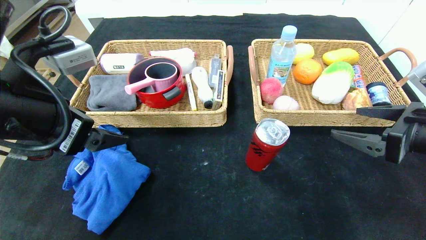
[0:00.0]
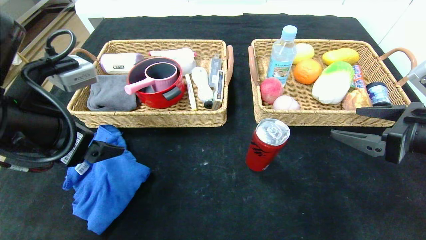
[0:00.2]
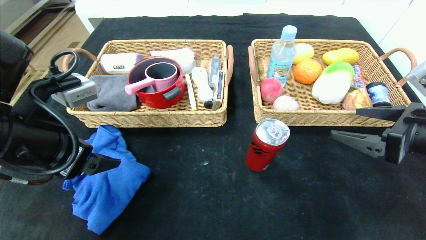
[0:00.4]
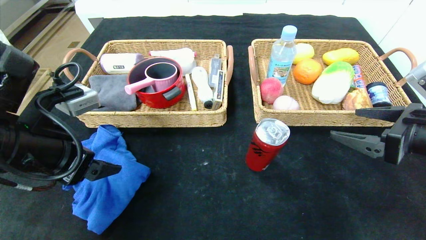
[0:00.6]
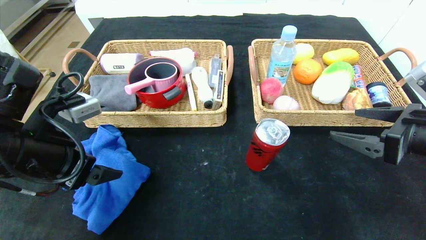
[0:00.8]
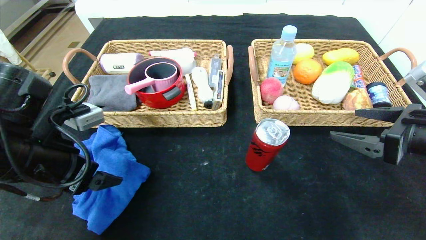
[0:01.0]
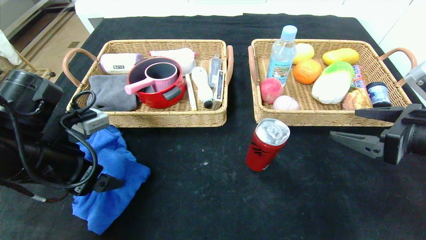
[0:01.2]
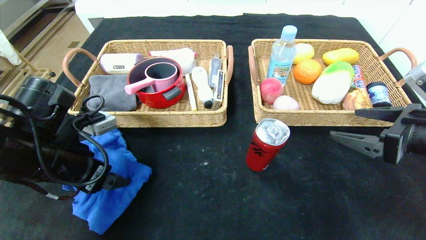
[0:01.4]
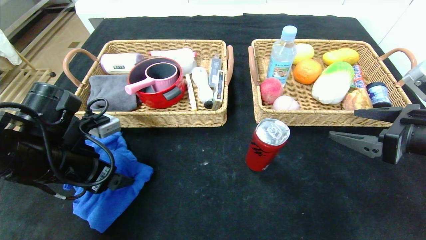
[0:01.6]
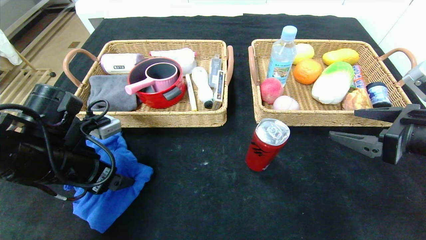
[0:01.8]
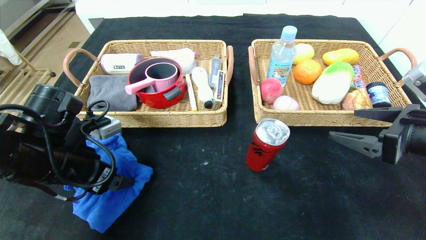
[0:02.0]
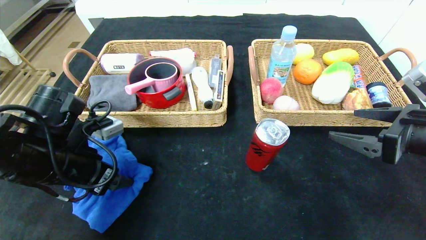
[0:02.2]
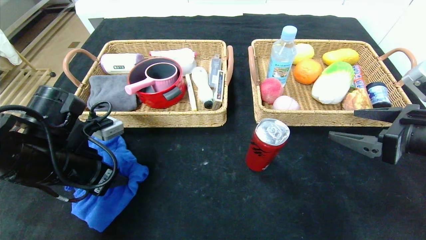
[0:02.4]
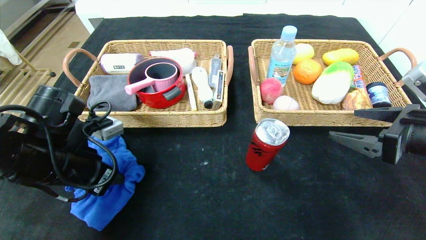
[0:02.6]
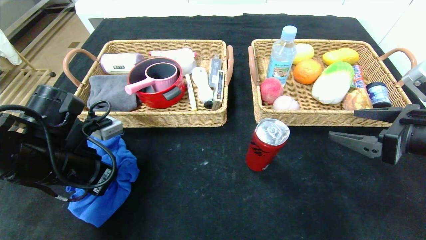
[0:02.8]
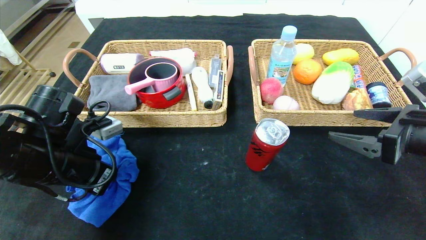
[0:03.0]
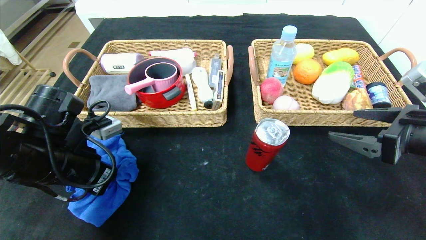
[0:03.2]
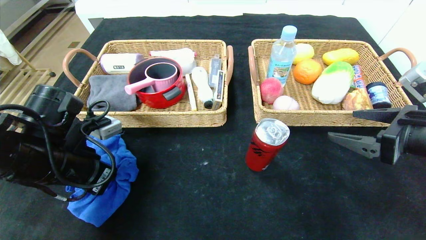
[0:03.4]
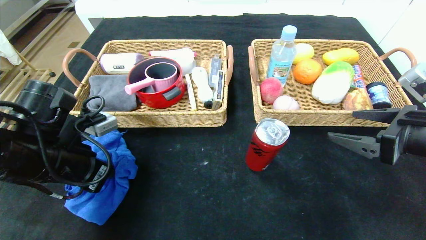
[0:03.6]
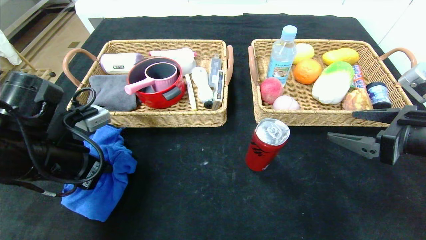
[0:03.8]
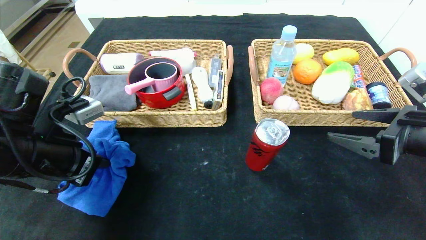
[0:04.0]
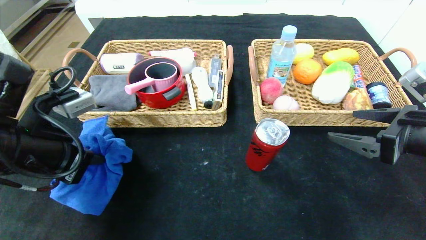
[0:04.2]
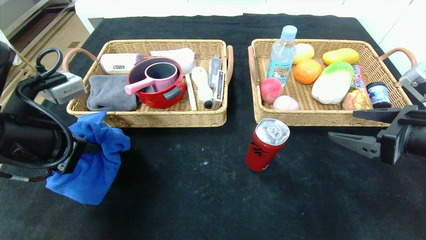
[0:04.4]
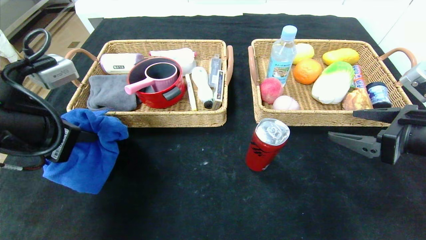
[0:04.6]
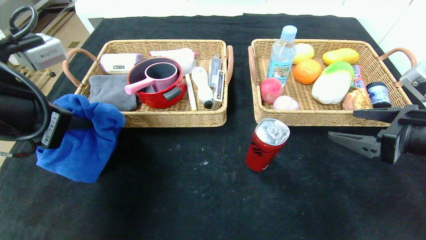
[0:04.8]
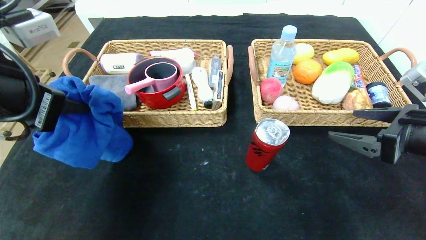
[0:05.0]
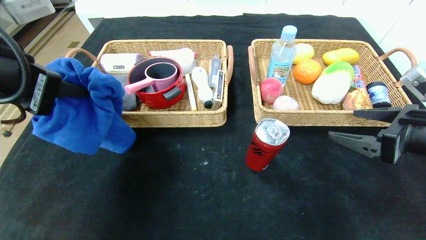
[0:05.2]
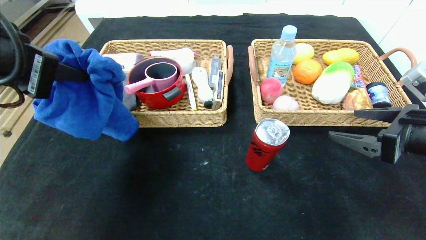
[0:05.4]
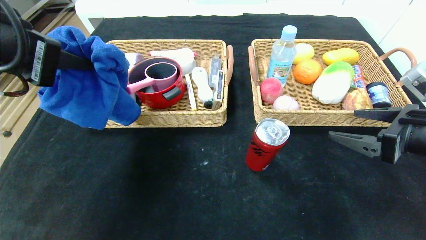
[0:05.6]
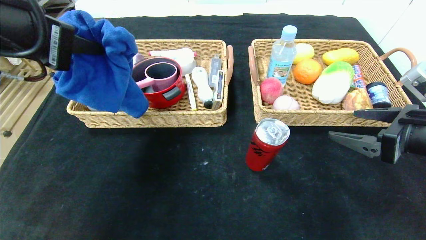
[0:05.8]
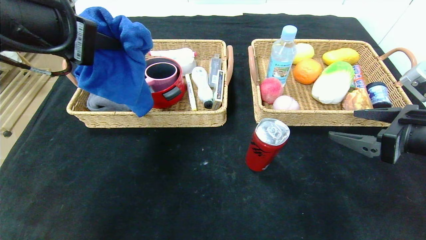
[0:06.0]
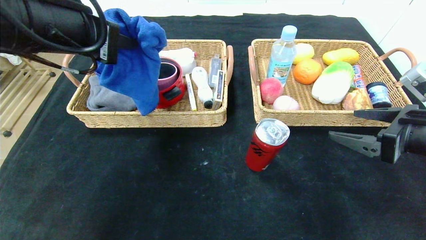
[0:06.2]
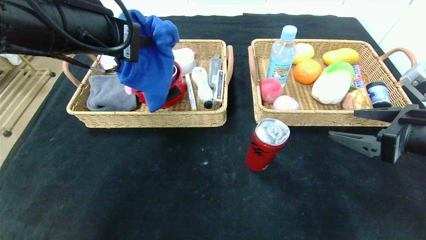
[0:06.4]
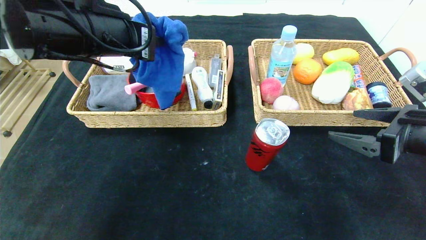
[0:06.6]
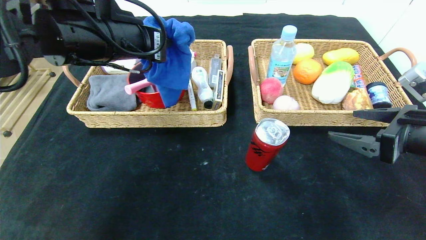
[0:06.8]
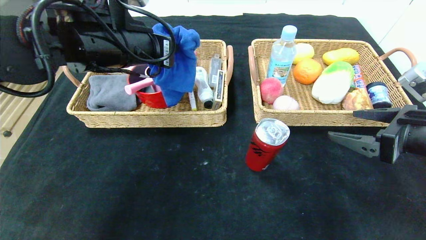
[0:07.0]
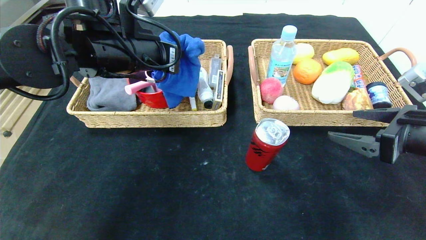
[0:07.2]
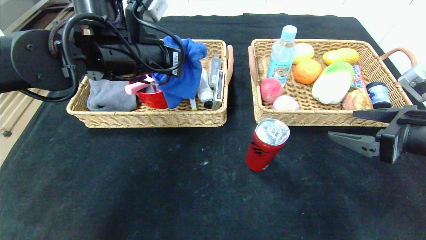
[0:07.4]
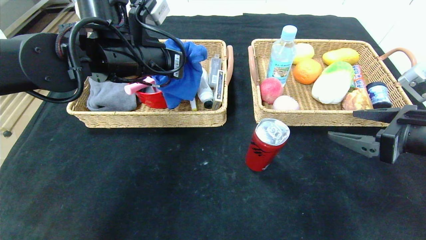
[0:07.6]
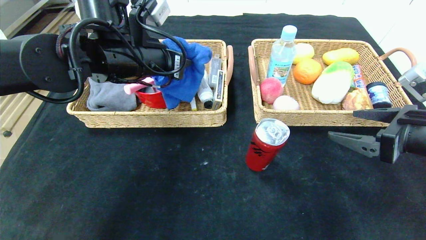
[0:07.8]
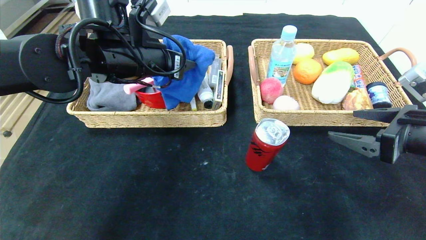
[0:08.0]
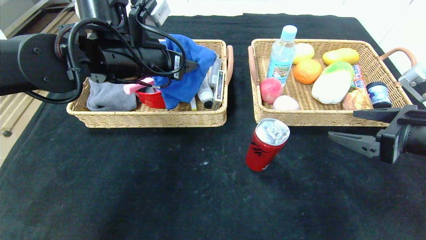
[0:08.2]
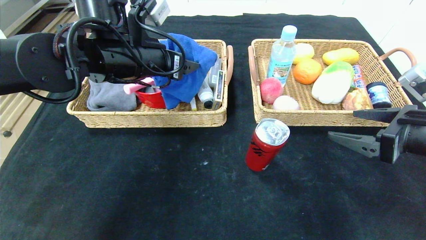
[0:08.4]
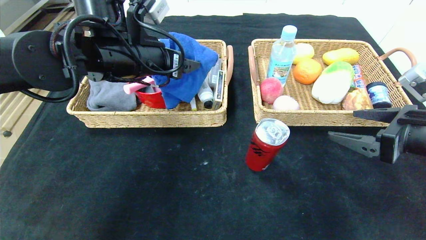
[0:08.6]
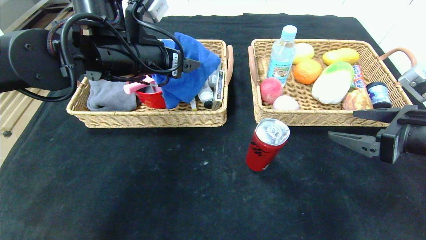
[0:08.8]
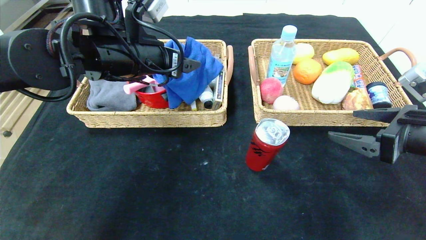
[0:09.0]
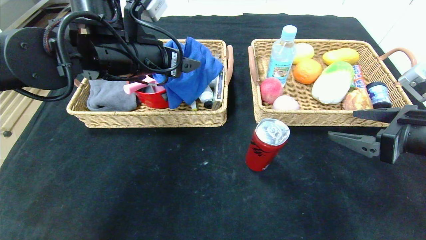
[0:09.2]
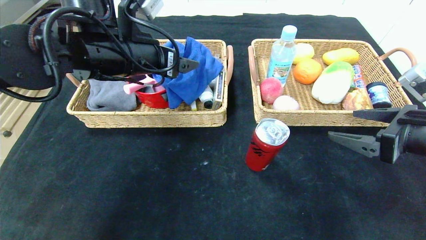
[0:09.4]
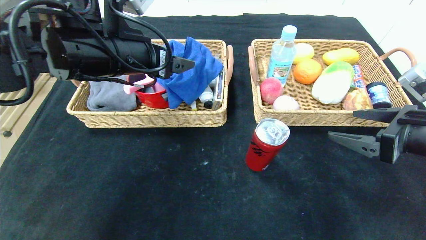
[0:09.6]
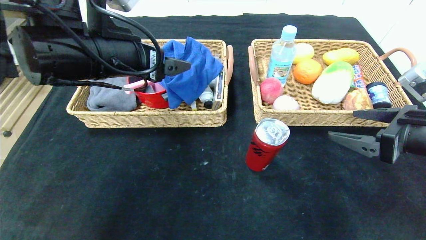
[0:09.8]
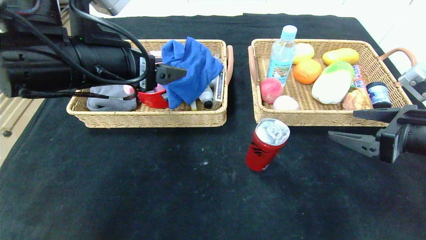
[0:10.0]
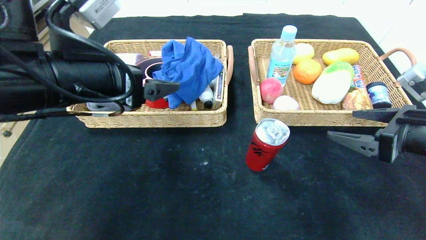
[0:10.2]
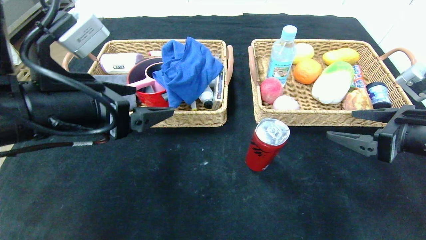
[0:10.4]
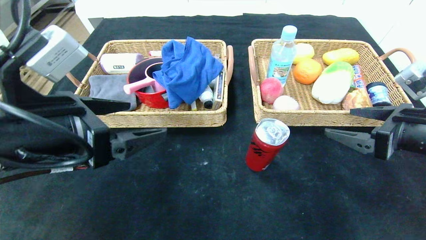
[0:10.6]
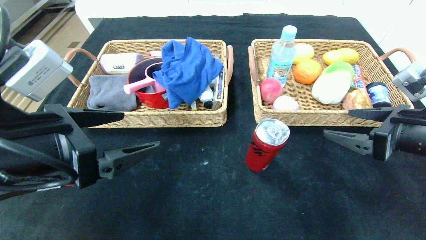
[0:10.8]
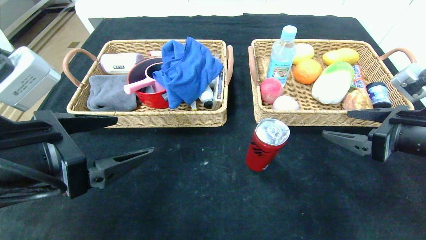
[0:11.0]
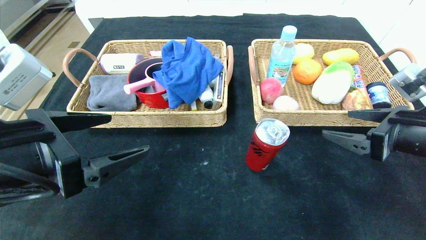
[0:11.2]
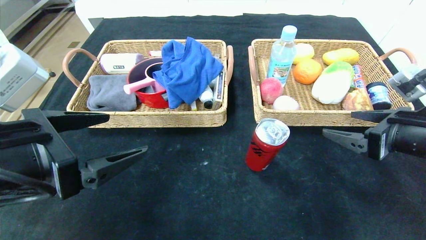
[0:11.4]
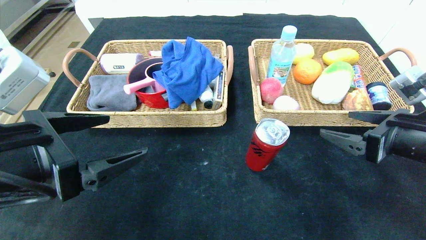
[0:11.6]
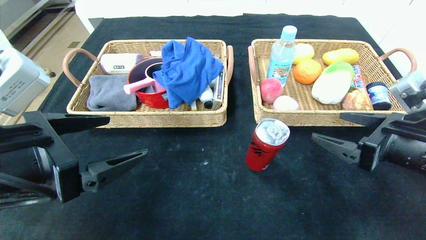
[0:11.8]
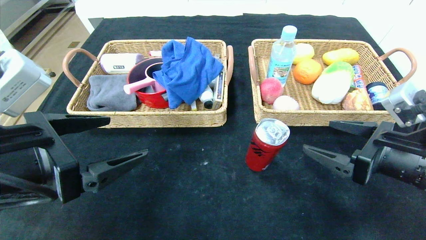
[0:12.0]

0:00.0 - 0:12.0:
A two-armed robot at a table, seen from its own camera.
Step, 0:00.0 - 0:08.8: Grasp the blue towel and put it in the left basket.
0:00.0 - 0:01.6: The left gripper goes roughly 10 cm downward.
0:01.6 - 0:03.0: The left gripper closes up.
0:03.0 - 0:04.4: The left gripper travels upward by roughly 5 cm.
0:04.4 - 0:06.0: The left gripper goes about 10 cm upward.
0:06.0 - 0:07.6: The left gripper is displaced forward, to the right and downward by roughly 15 cm.
0:07.6 - 0:09.0: The left gripper opens up.
0:09.0 - 0:10.4: The left gripper travels backward by approximately 15 cm.
0:10.4 - 0:12.0: The right gripper shifts by about 5 cm. Meanwhile the left gripper is displaced backward by approximately 5 cm.

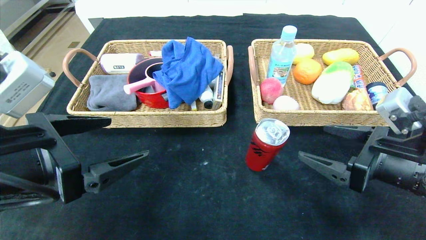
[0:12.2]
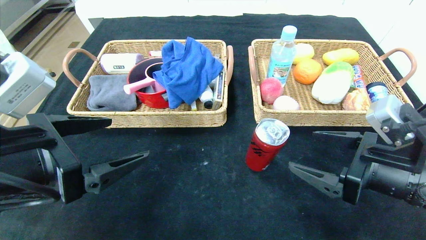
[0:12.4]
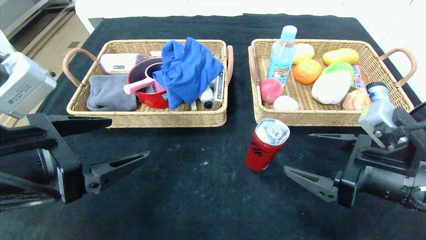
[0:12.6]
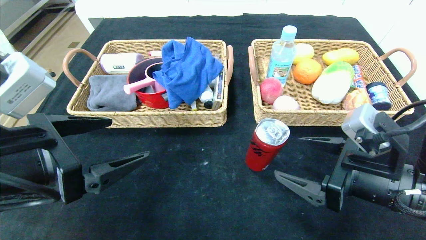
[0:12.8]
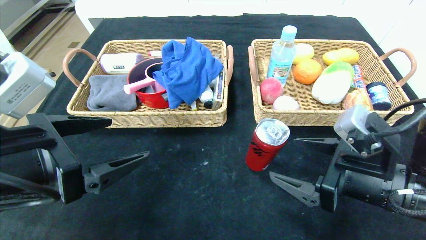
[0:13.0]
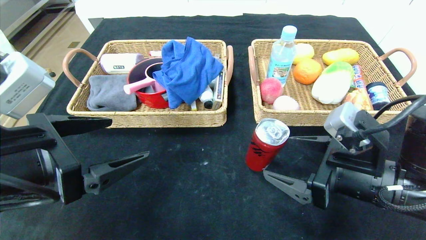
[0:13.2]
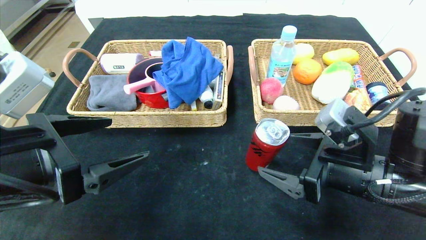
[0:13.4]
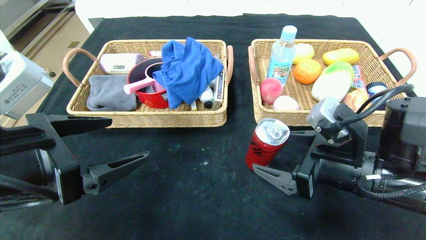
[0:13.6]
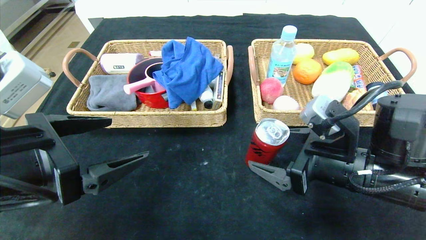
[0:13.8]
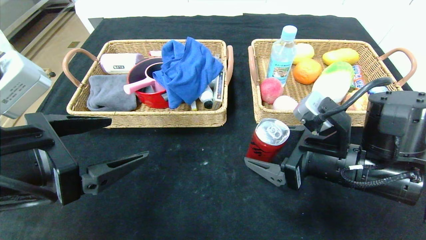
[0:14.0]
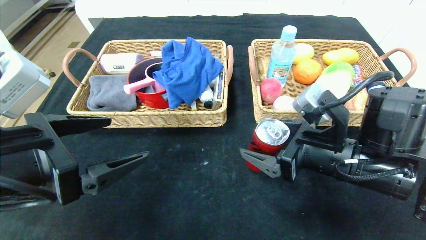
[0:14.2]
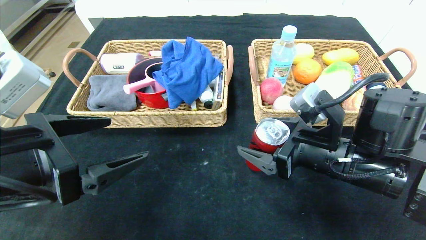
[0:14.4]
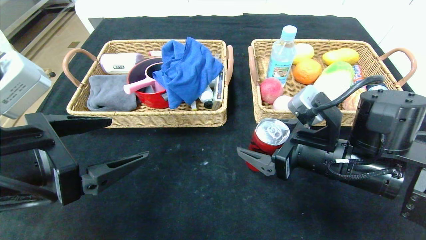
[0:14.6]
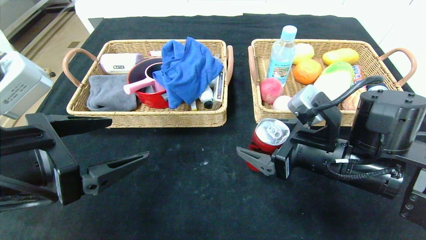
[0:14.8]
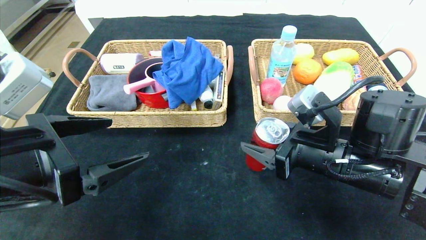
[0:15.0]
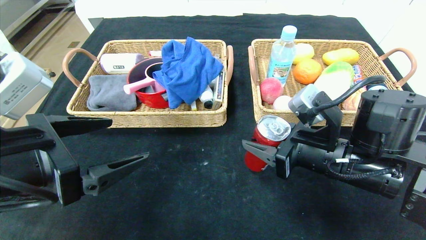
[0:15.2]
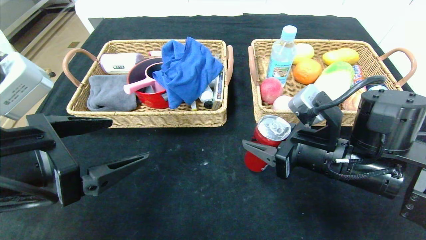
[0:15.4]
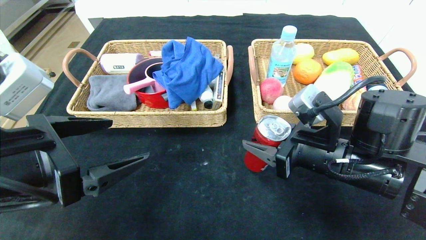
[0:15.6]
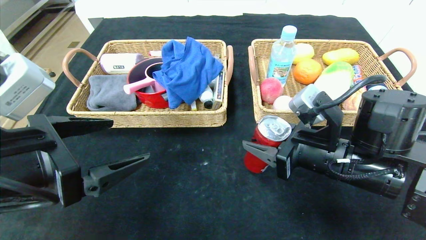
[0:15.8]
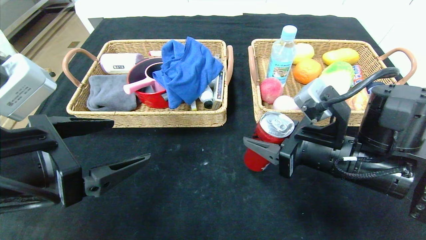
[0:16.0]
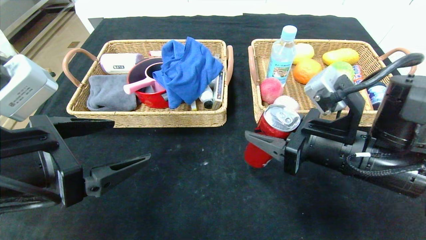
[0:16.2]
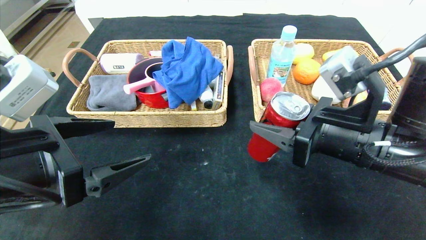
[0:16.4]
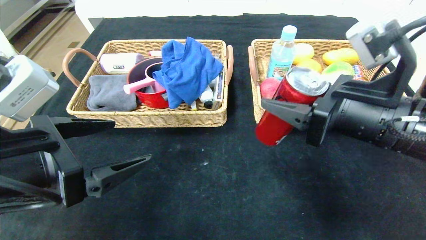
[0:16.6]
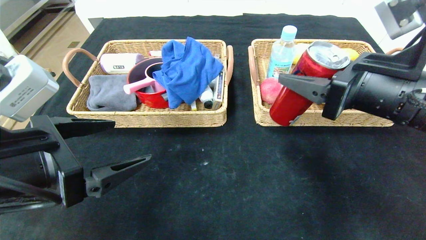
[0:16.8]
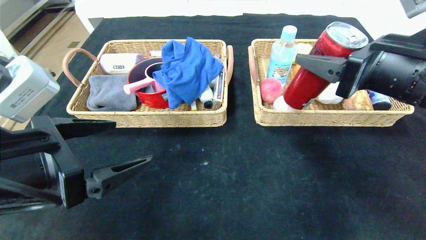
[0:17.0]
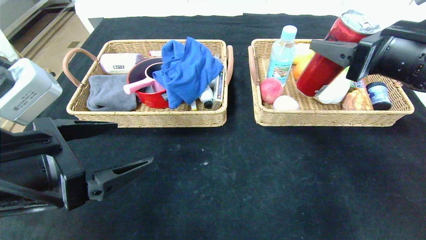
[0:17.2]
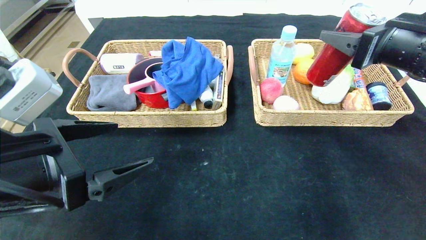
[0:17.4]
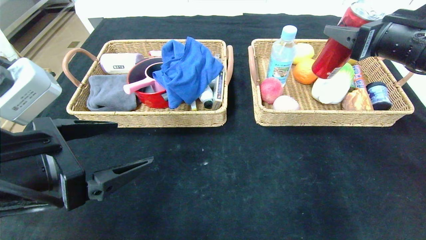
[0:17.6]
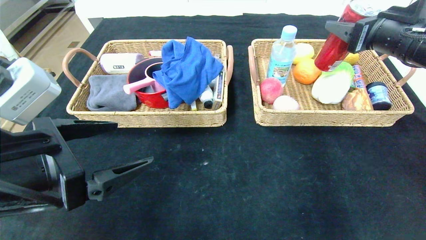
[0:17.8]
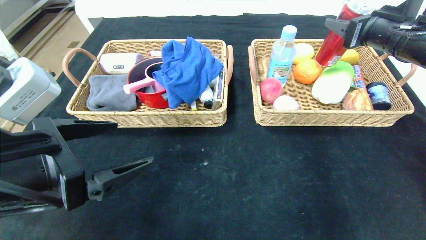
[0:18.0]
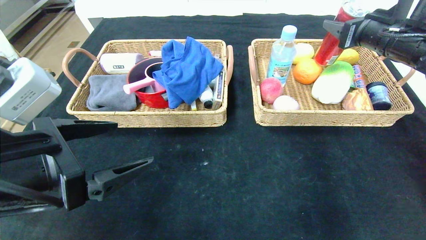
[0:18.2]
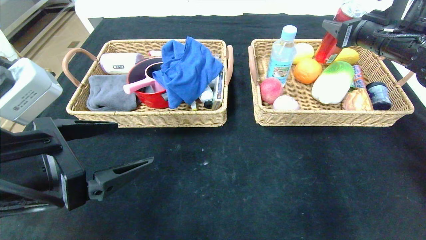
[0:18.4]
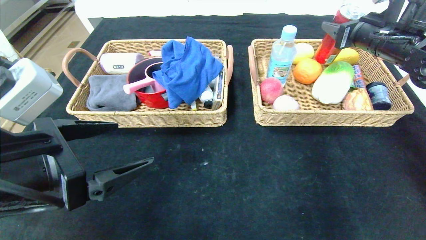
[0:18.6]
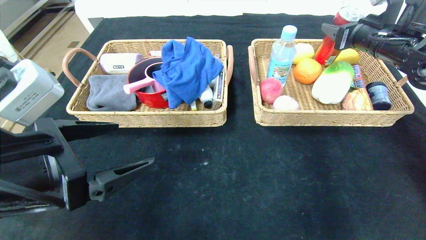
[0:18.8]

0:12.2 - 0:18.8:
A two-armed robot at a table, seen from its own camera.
0:12.2 - 0:13.8: The right gripper moves to the left, about 5 cm.
0:13.8 - 0:15.4: The right gripper closes its fingers.
0:15.4 - 0:17.2: The right gripper heads upward and to the right, covering roughly 15 cm.
0:17.2 - 0:18.8: The right gripper moves forward and to the right, approximately 15 cm.
